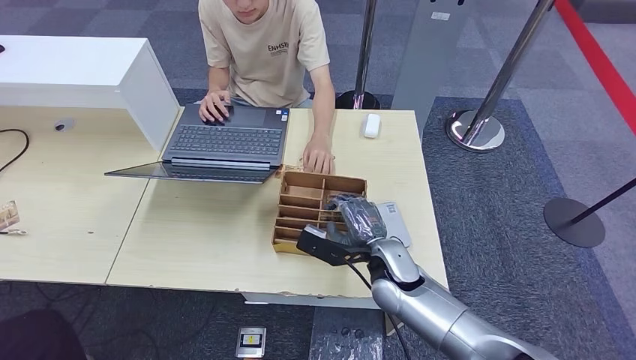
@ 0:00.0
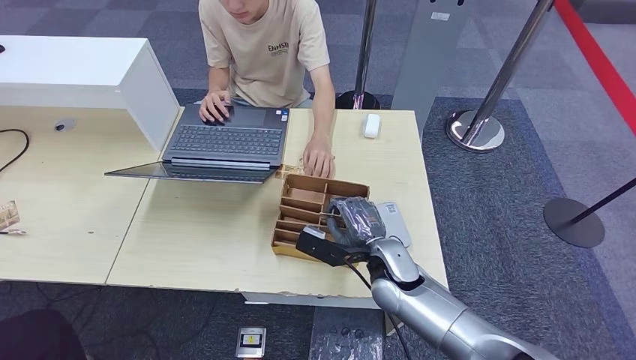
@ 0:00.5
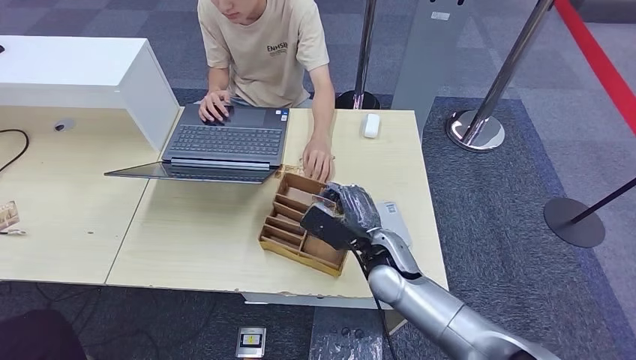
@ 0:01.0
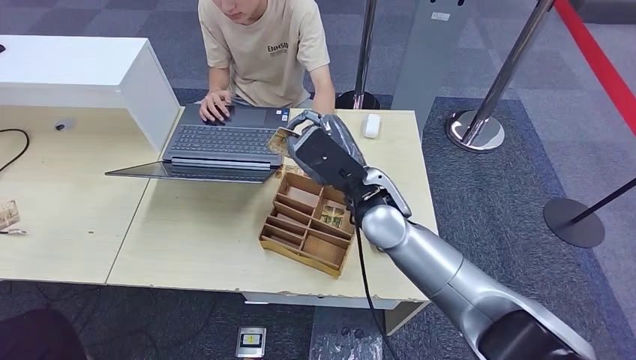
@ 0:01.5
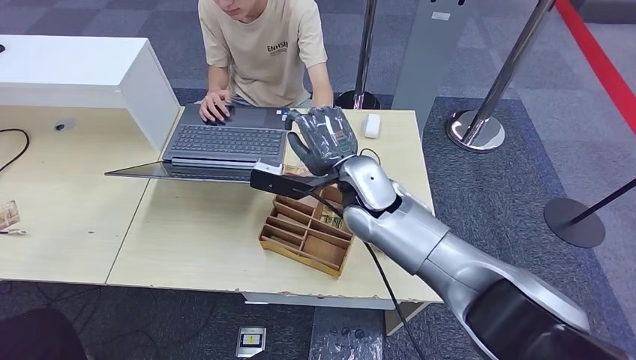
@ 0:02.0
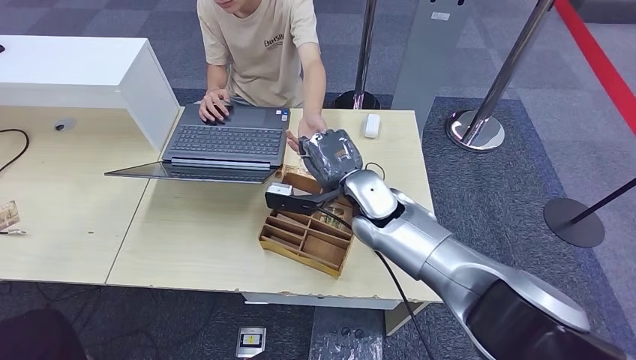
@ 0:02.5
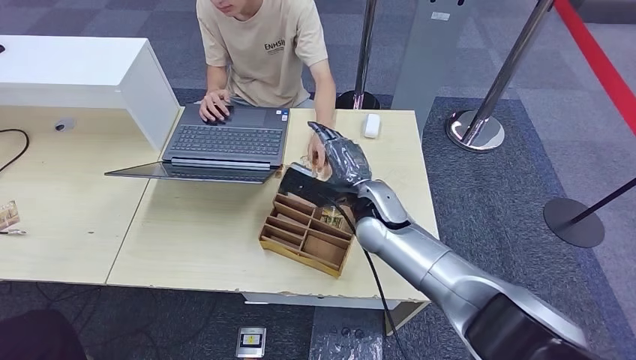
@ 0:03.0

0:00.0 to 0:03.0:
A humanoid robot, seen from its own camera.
Step, 0:02.0 to 0:03.0: Hand the room key to the person.
0:00.0 to 0:01.5: The right hand heads upward, covering about 15 cm.
0:01.5 to 0:03.0: The right hand heads downward, covering some 5 cm.
